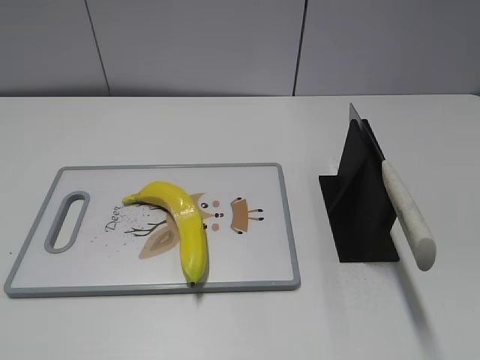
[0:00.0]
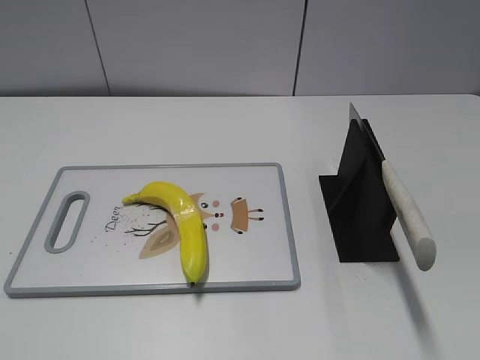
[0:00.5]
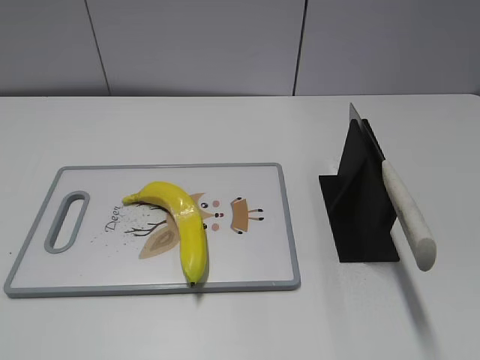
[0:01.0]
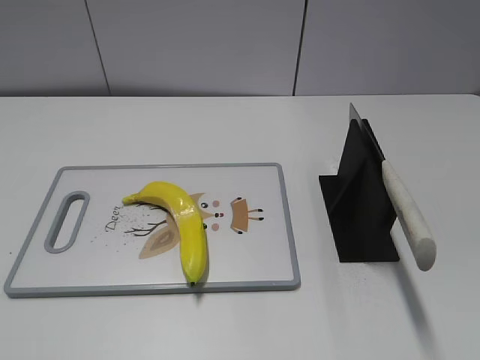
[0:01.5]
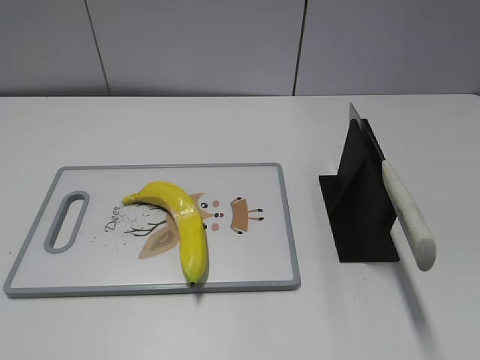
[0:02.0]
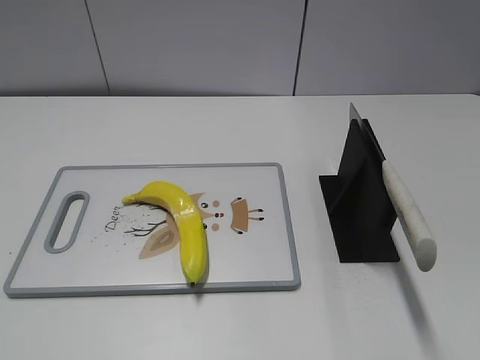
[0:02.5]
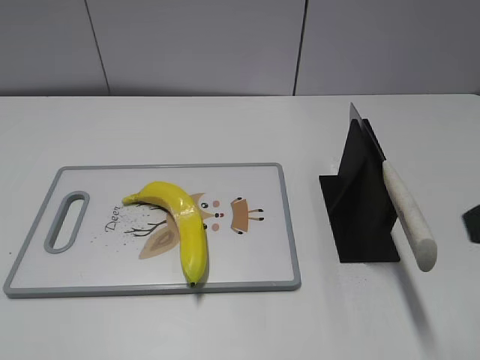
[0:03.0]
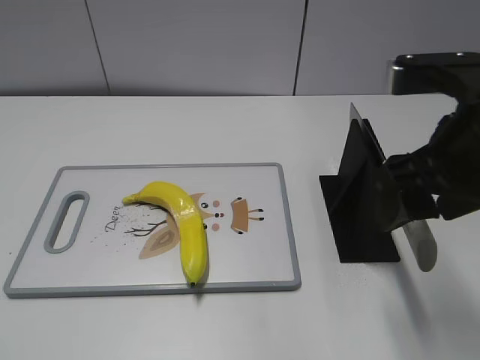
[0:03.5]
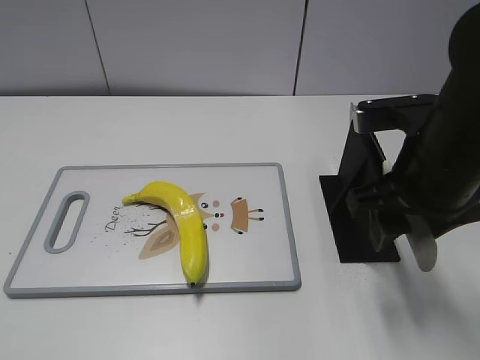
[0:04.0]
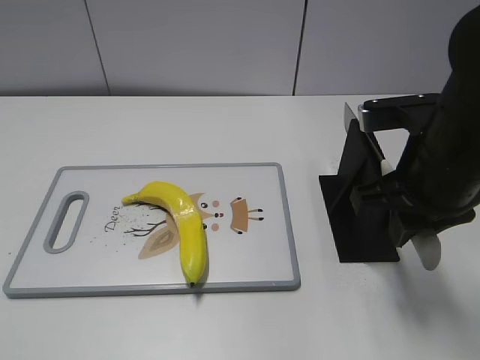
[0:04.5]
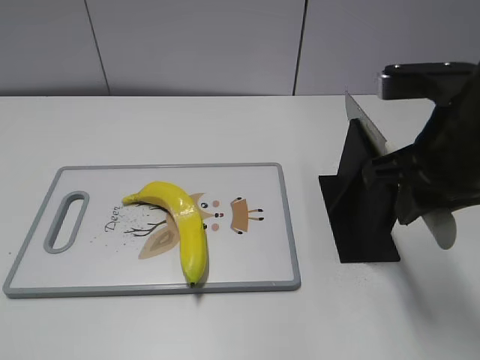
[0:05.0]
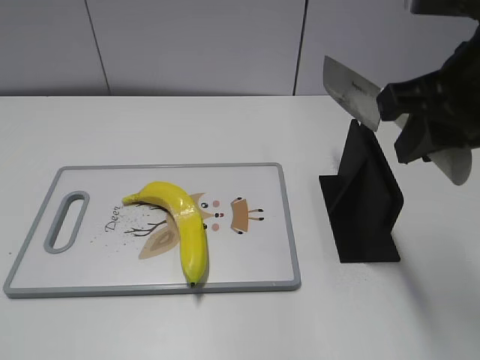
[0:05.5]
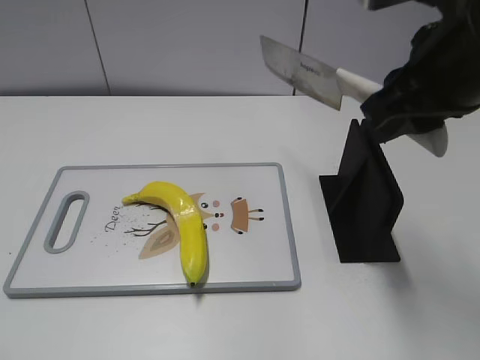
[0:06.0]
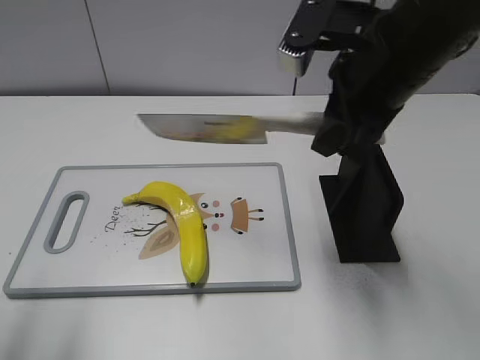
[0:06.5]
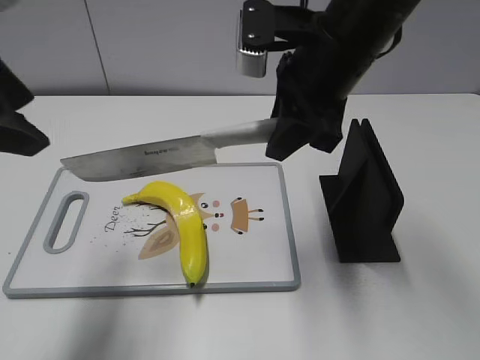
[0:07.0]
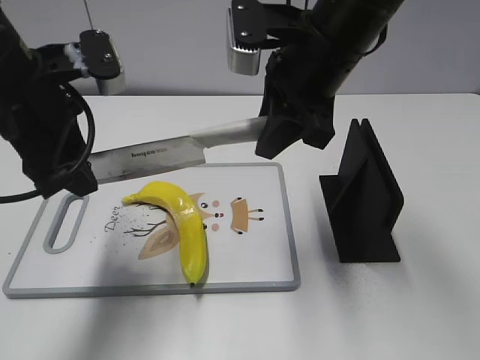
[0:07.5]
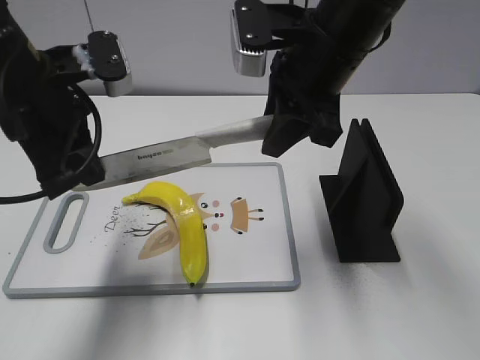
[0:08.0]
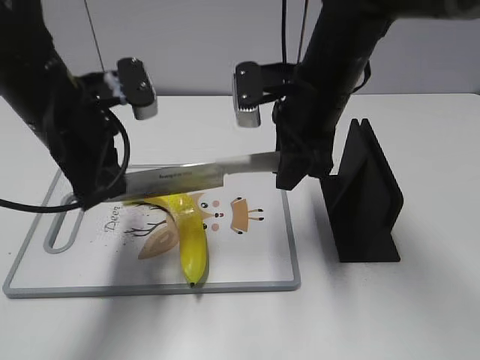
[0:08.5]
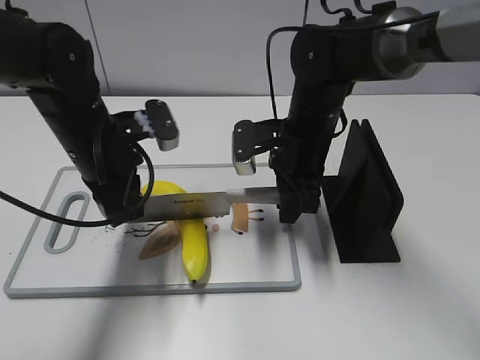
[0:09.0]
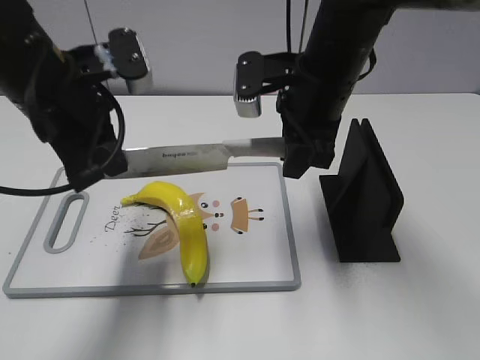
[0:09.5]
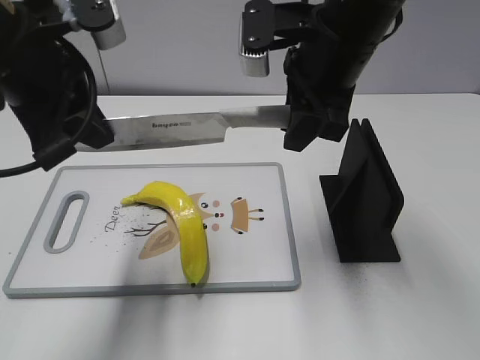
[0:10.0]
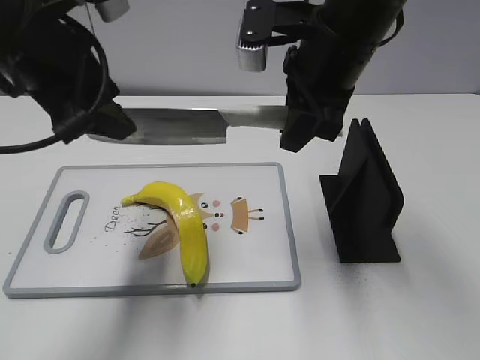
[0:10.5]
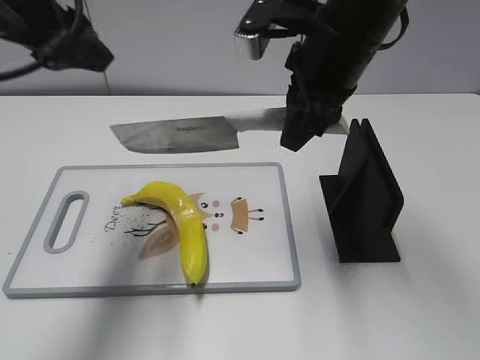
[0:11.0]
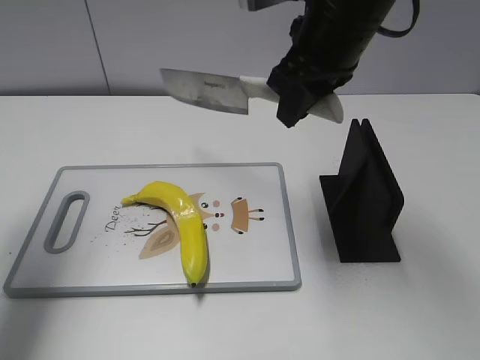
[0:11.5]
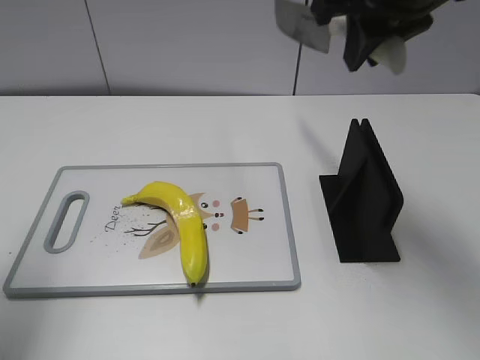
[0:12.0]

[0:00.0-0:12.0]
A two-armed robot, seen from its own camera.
Task of the whole recording: cut plastic banana.
Step, 0:00.0 to 0:05.5: Grab the knife handle with your right hand.
Step, 0:06.0 to 0:10.0: Lift the knife with your right hand.
Step, 0:10.5 to 0:11.0: Cut the banana with your left hand.
0:02.0 to 0:04.0: The right gripper goes about 25 cm forward and to the left.
0:04.0 to 0:06.0: The right gripper shifts roughly 10 cm upward, and closes up.
0:06.0 to 0:08.0: The left gripper moves forward and to the right, about 30 cm, and closes up. The right gripper moves to the left and forward, about 10 cm.
0:08.0 to 0:10.0: The right gripper moves roughly 15 cm downward and comes back. Meanwhile the left gripper goes downward and returns, some 10 cm each way.
0:10.0 to 0:12.0: The right gripper goes about 10 cm upward. The left gripper heads to the left, covering roughly 15 cm, and opens up.

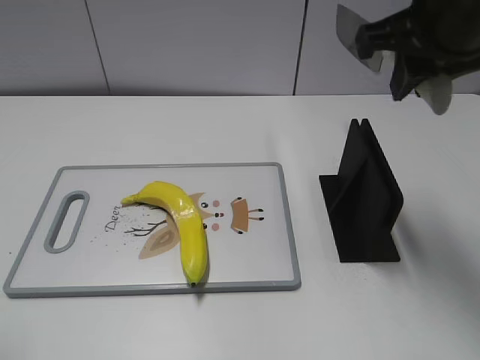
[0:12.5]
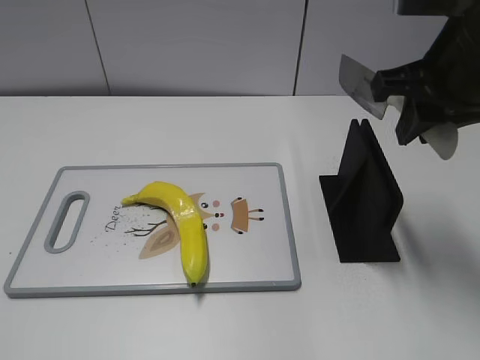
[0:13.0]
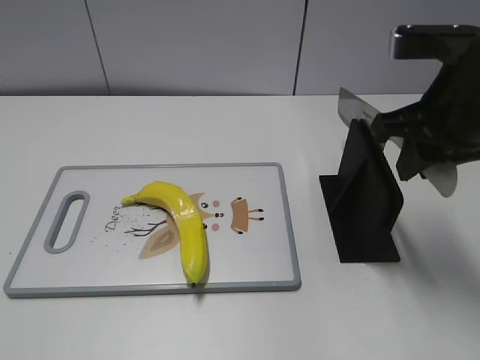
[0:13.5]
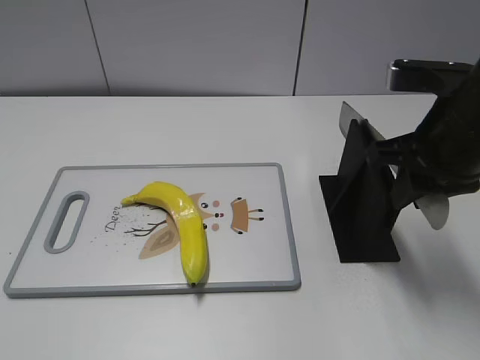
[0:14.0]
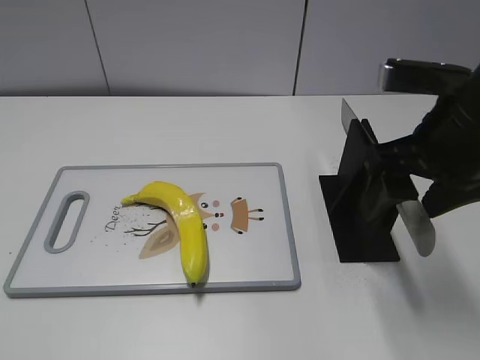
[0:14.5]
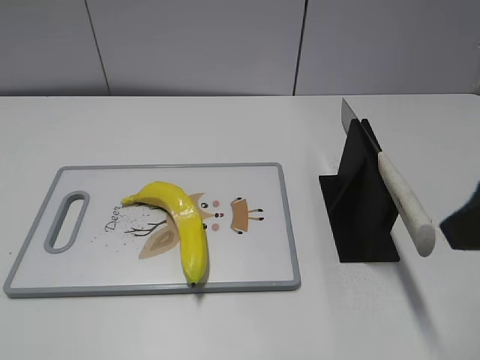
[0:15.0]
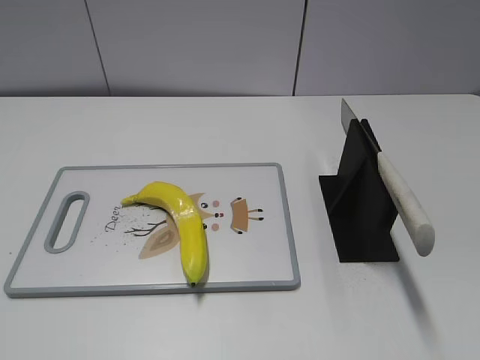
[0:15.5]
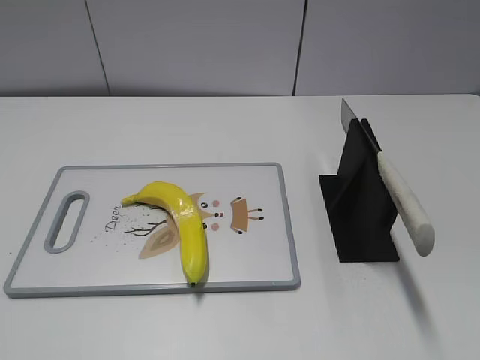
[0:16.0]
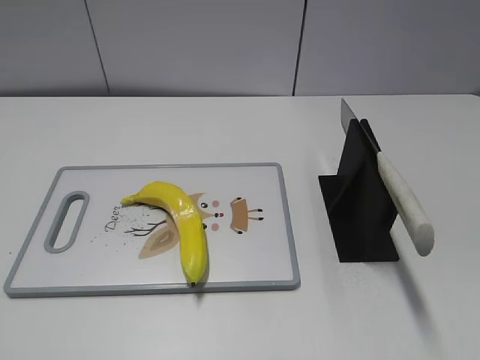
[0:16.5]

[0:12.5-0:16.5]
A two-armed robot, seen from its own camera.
Task of the whole recording: cut plastic banana.
Step, 0:13.0 to 0:16.5: Place the knife on the storage rack with your right hand.
0:12.5 to 0:14.5: The right gripper heads downward, covering some 10 cm, and opens its fingers.
0:14.5 to 0:16.5: The right gripper goes about 30 cm backward and to the right.
